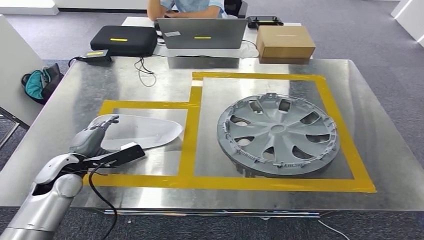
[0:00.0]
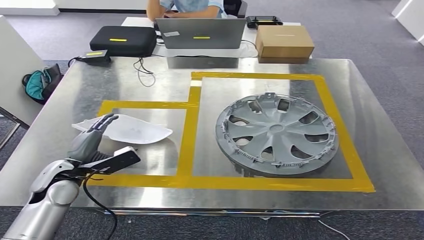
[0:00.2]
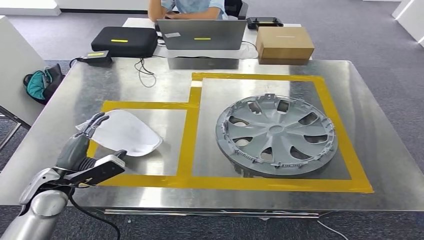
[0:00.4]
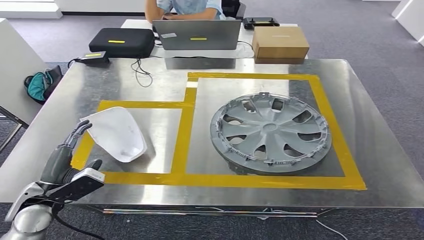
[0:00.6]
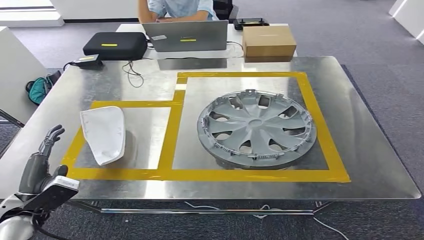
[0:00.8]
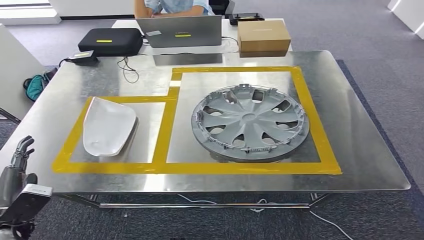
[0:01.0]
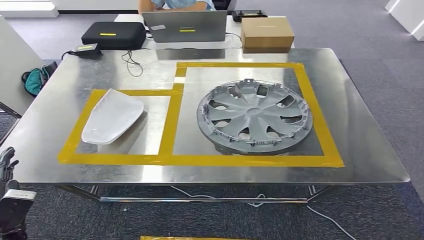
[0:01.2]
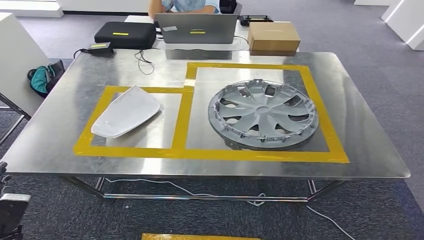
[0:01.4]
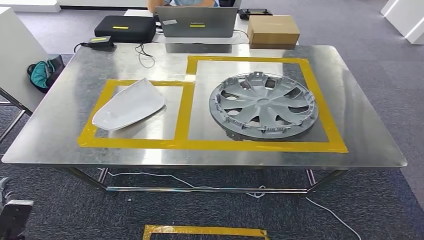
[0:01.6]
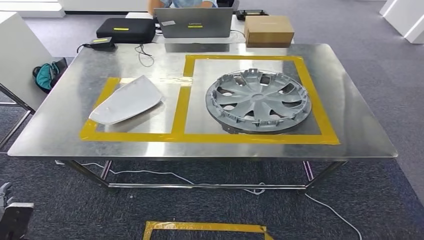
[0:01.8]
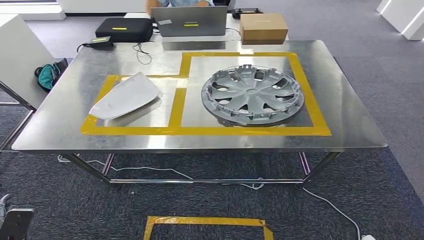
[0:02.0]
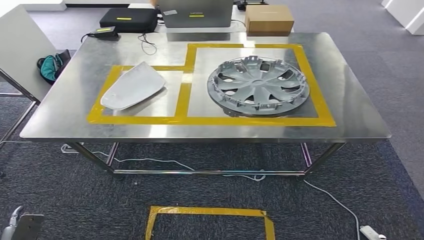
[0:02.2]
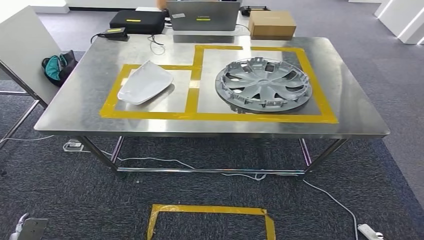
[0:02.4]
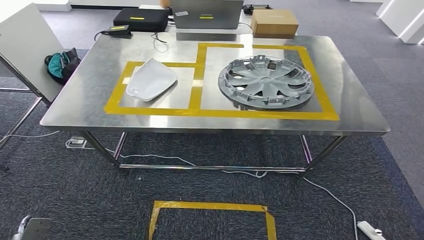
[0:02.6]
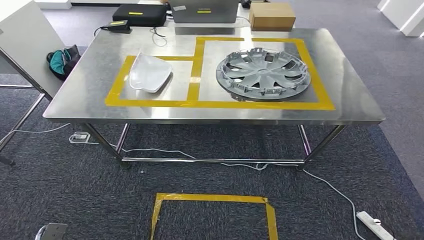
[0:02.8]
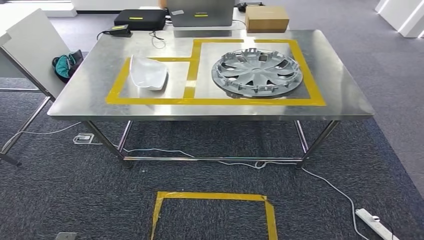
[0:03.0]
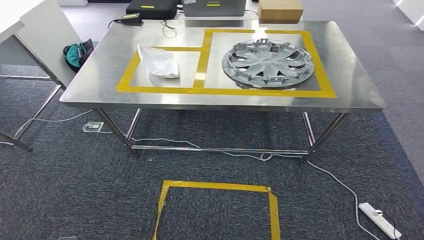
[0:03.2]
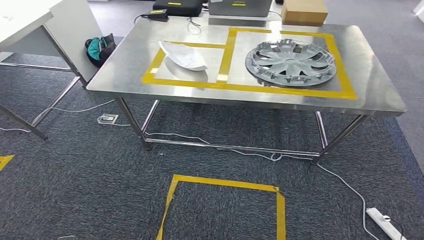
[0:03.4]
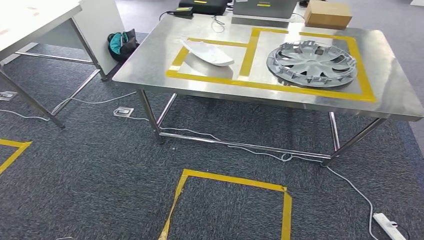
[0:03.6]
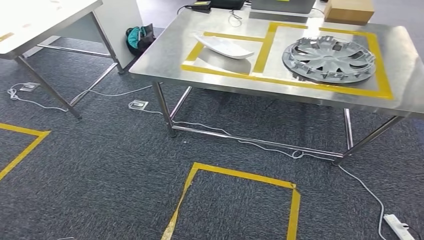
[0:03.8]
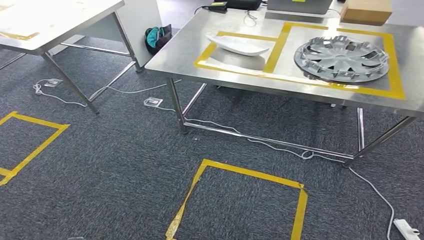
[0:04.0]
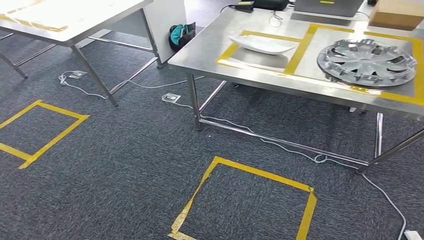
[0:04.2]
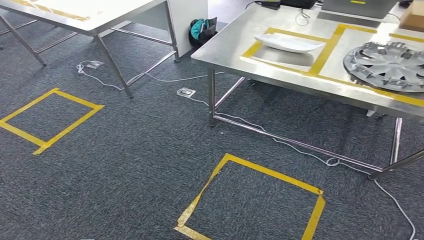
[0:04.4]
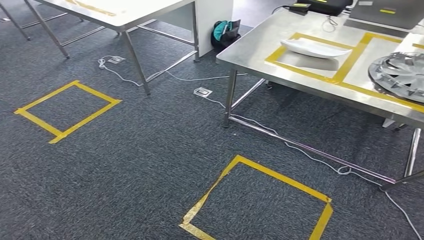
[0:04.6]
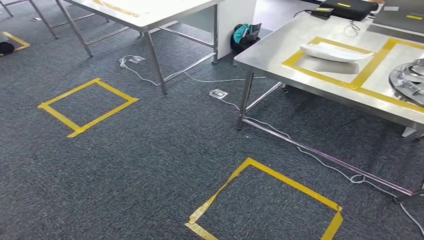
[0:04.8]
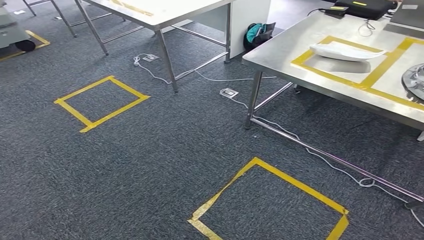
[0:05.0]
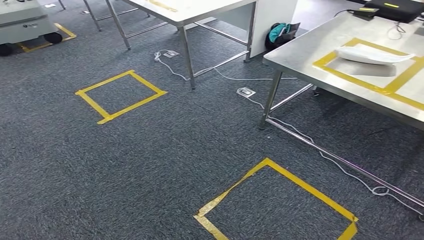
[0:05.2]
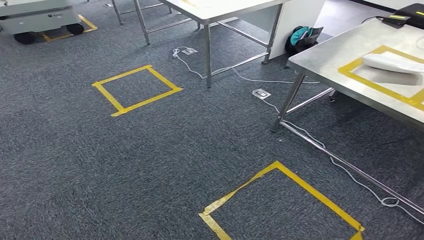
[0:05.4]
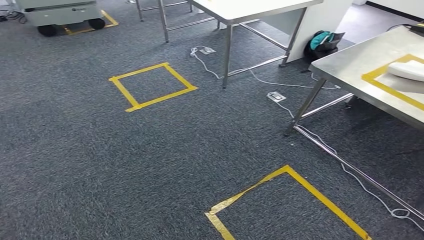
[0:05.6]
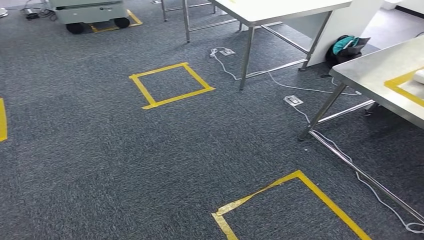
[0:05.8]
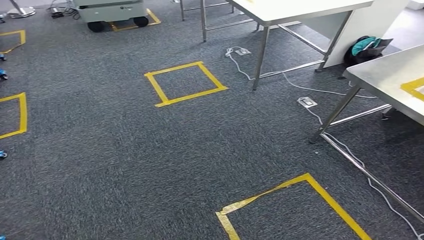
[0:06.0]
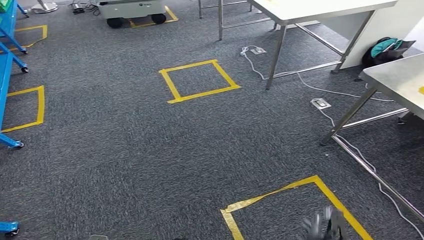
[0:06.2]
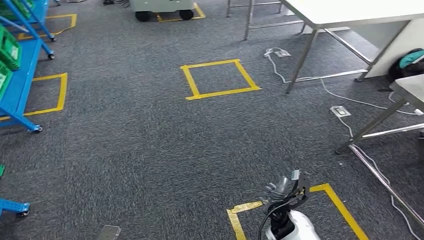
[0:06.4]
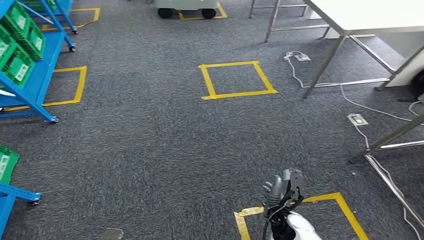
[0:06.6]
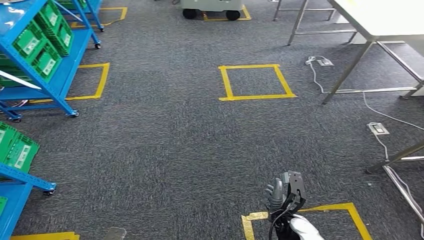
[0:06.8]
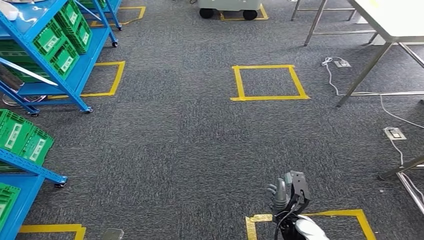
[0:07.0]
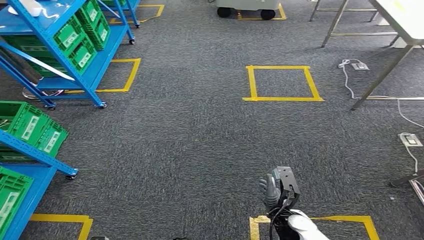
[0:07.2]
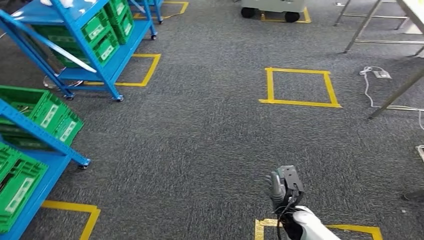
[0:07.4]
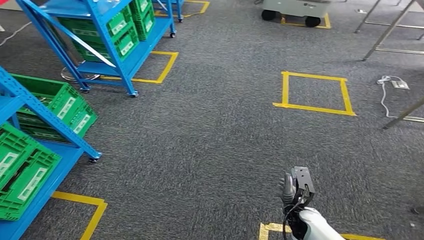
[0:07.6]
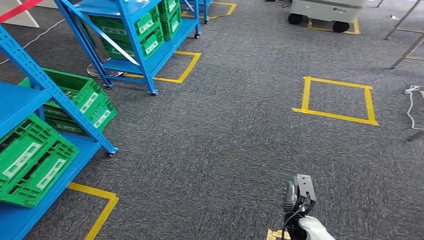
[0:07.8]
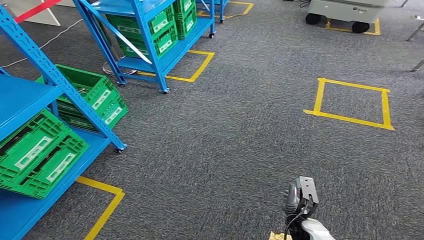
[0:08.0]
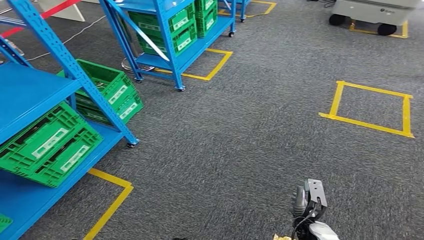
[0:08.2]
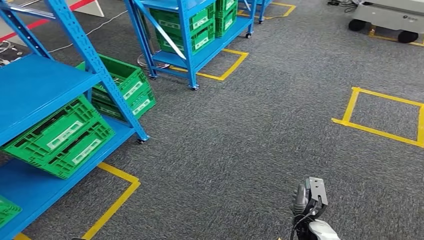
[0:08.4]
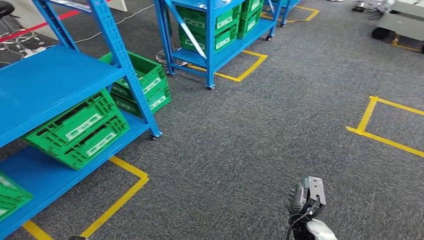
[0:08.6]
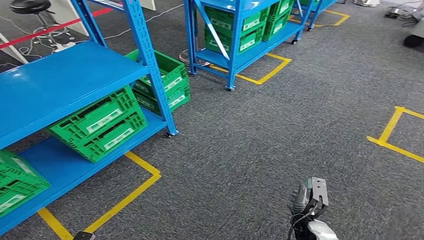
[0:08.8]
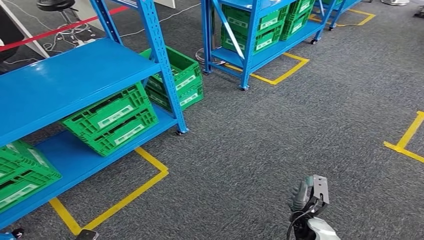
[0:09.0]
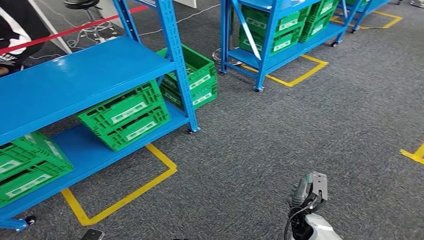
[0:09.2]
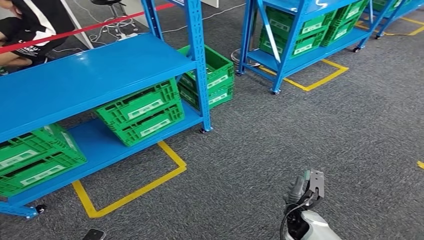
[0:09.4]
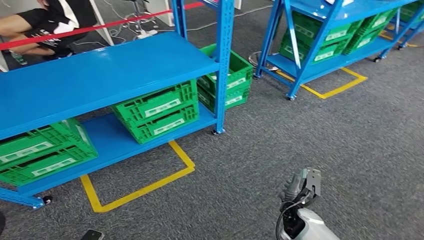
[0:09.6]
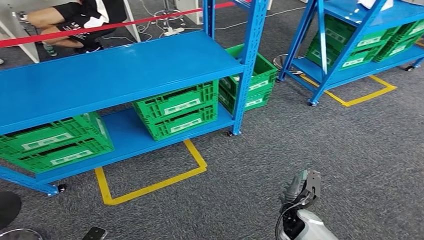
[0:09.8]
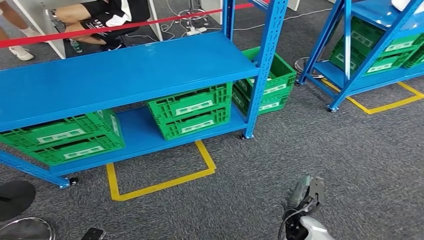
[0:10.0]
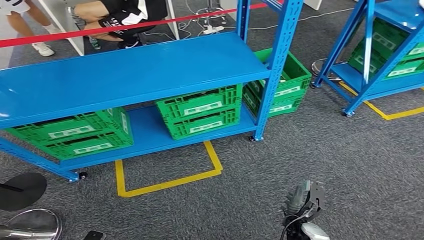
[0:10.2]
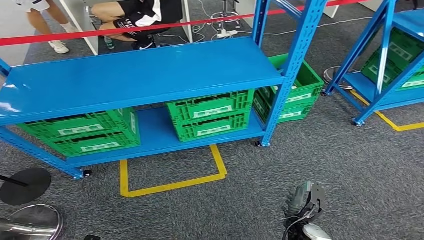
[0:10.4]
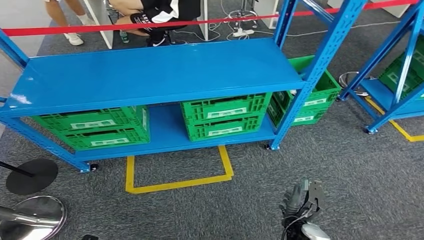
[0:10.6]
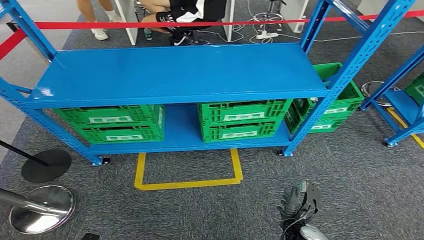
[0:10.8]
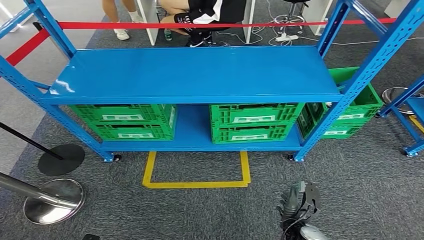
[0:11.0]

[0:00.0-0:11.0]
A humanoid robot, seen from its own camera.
Step, 0:01.6 to 0:11.0: Move to the initial position at the workbench.
